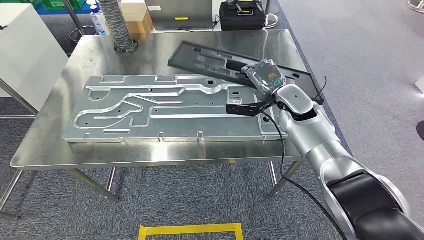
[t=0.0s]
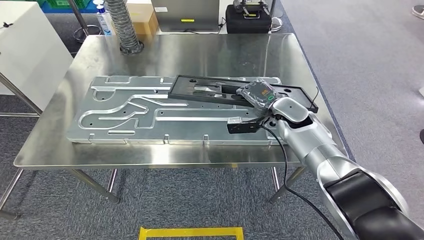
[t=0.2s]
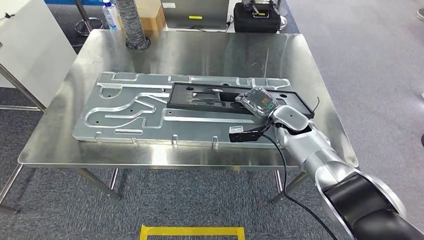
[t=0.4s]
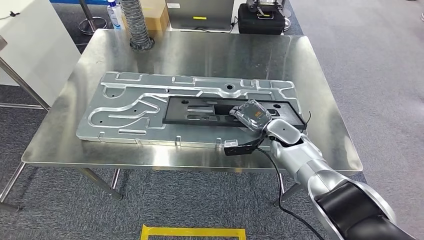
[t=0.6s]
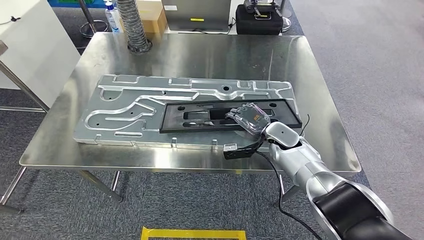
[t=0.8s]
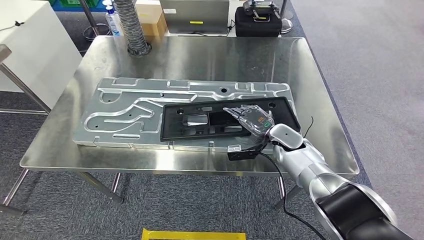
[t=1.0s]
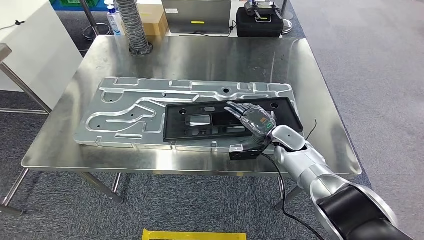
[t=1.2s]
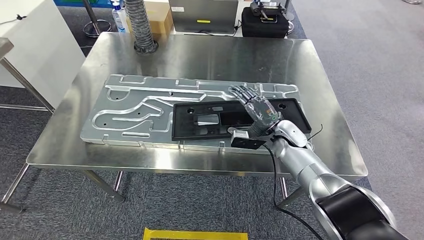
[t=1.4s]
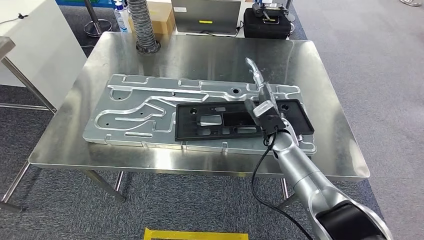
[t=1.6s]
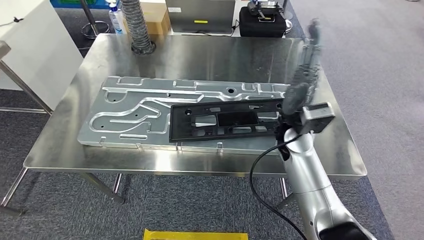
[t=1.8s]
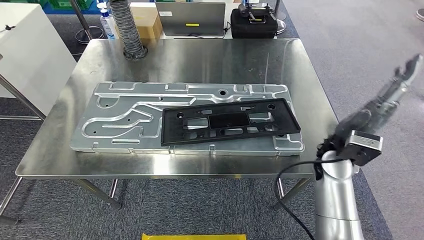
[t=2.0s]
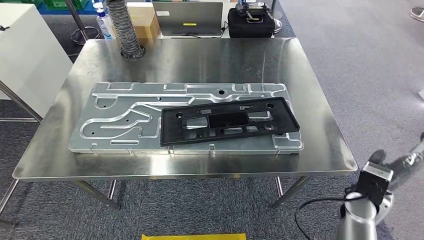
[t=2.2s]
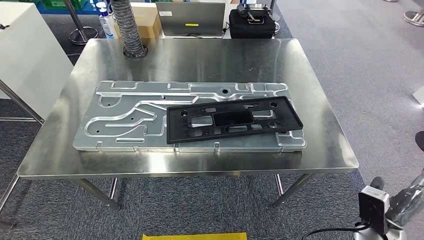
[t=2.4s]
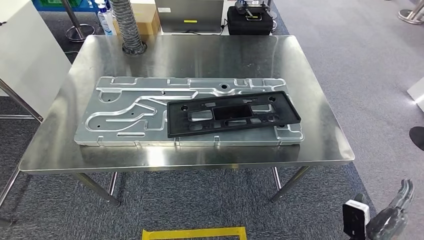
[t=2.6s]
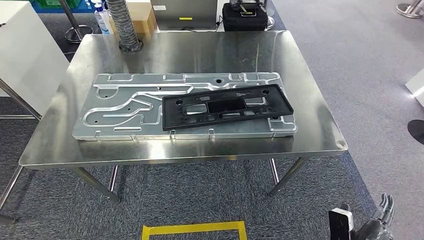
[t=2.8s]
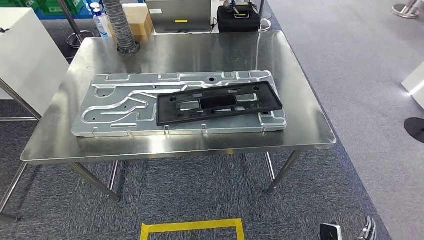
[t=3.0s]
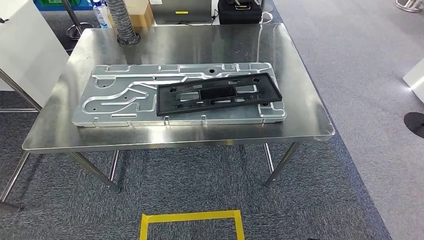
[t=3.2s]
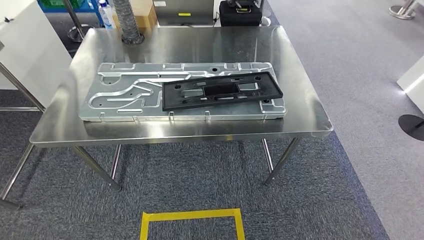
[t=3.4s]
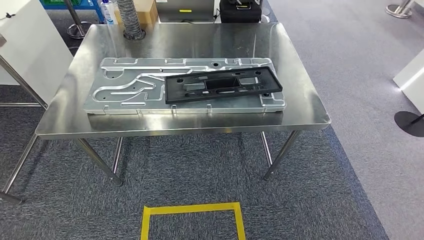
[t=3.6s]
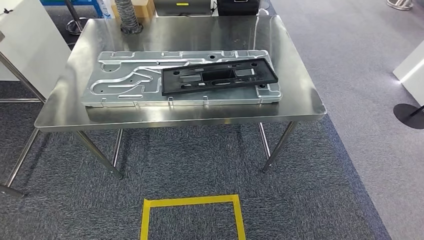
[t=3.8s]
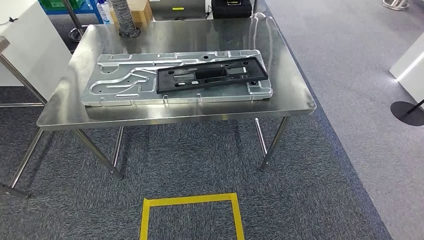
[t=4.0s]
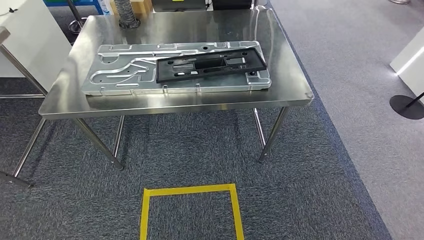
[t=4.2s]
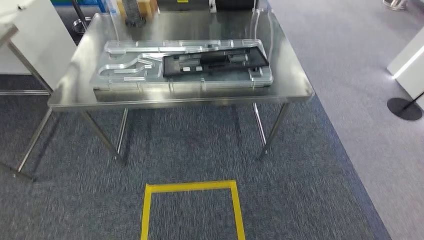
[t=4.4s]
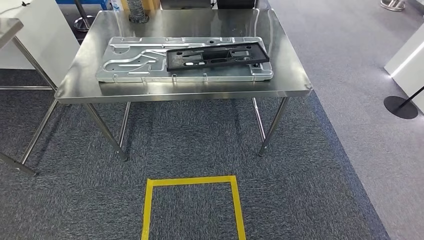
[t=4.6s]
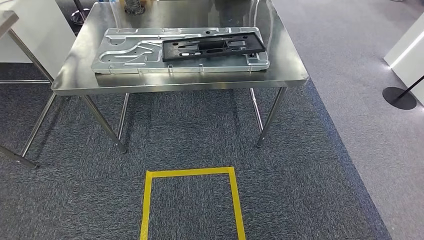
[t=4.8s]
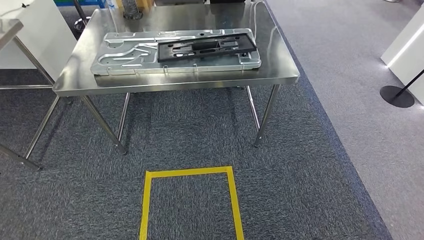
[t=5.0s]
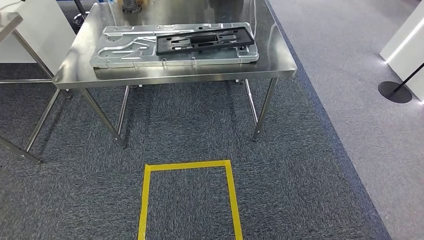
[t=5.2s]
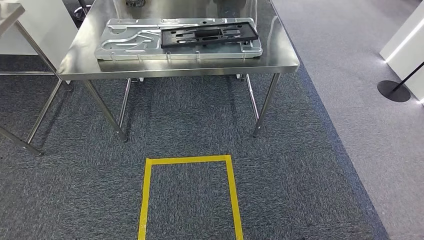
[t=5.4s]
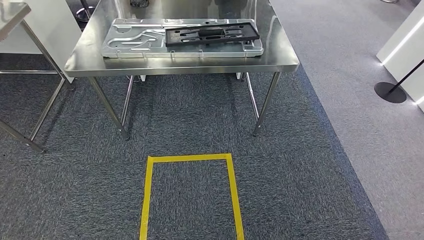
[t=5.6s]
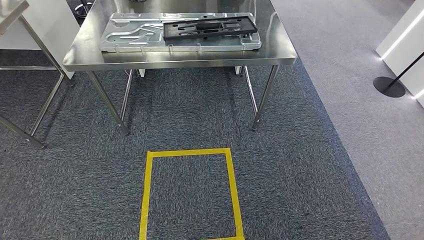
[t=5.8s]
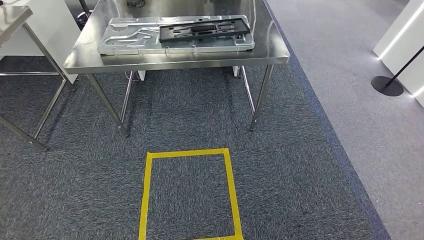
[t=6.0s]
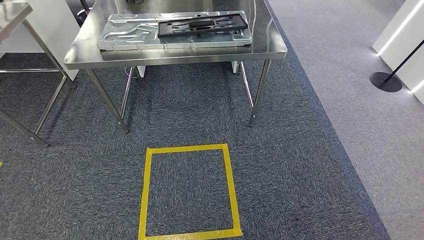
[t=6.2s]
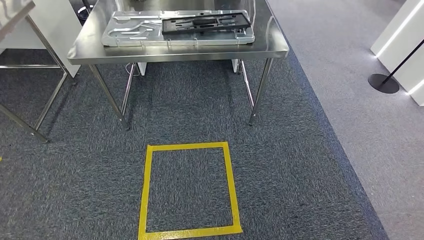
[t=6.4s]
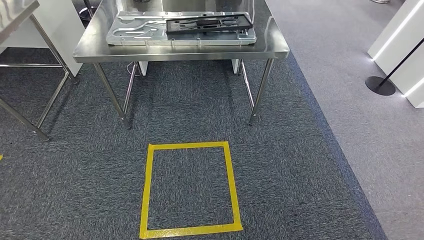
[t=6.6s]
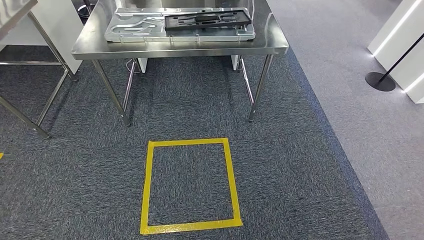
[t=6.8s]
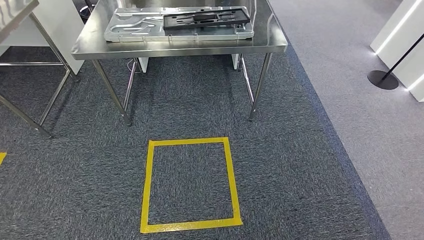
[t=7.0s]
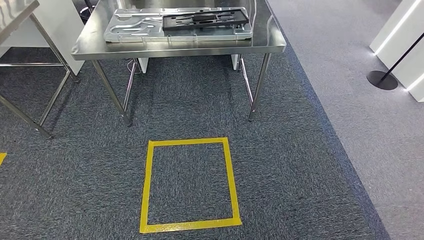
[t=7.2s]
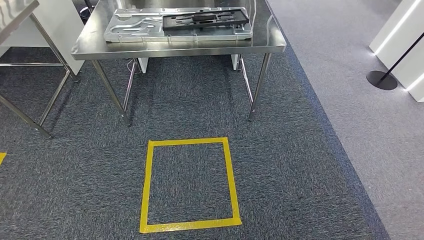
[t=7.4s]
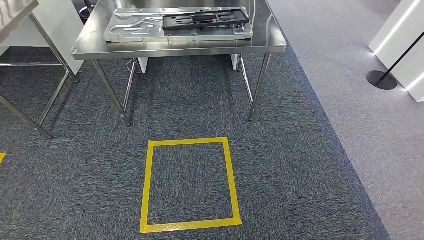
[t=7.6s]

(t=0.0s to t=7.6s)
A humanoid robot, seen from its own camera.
Step, t=0.0s - t=2.6s: Insert the large material into the corresponding slot on the workbench.
Step, t=4.0s - t=7.6s: Move to the initial position of the shelf.
t=6.0s - t=7.6s: The hands make only small movements.
